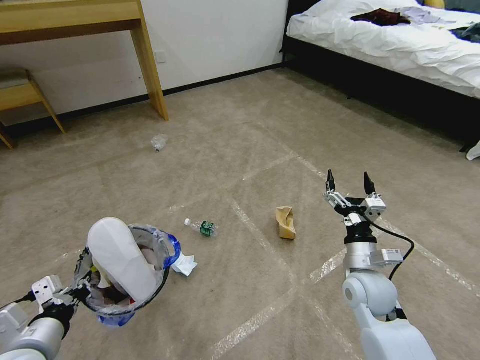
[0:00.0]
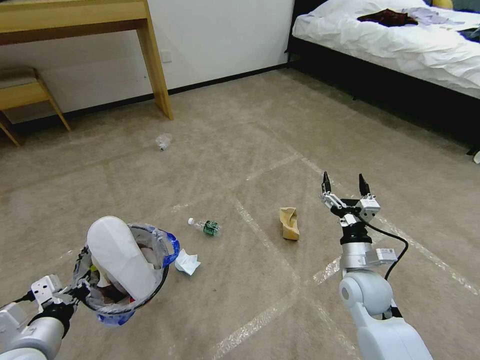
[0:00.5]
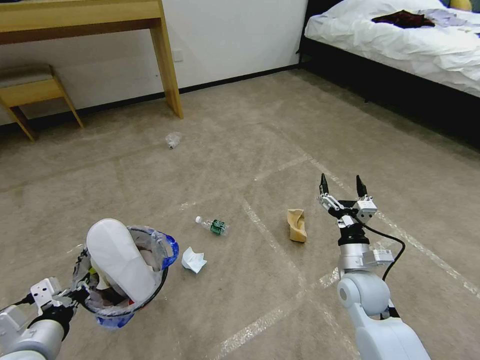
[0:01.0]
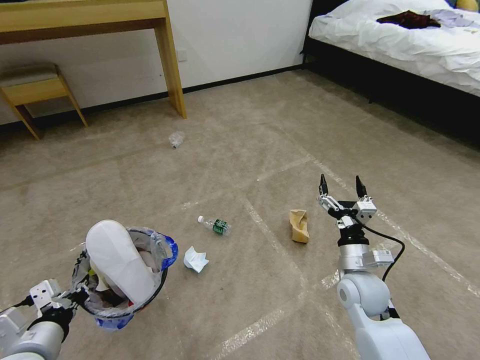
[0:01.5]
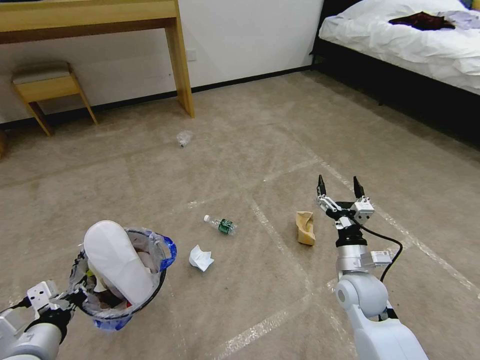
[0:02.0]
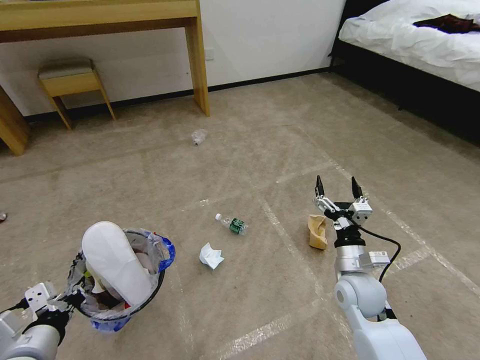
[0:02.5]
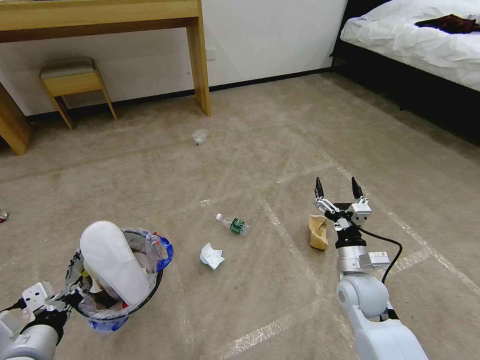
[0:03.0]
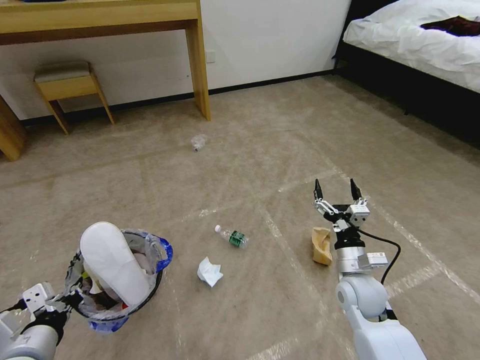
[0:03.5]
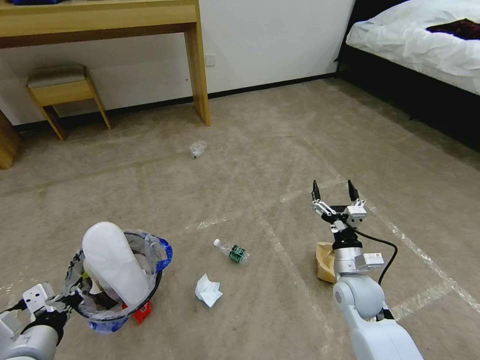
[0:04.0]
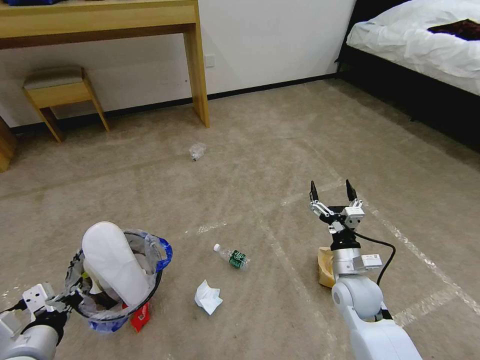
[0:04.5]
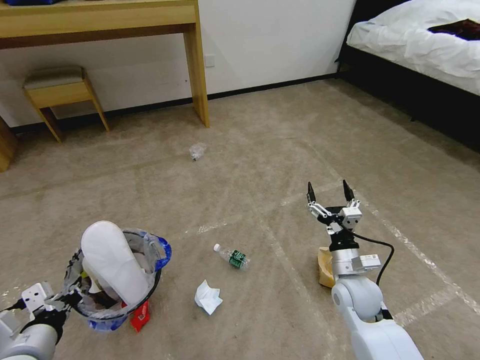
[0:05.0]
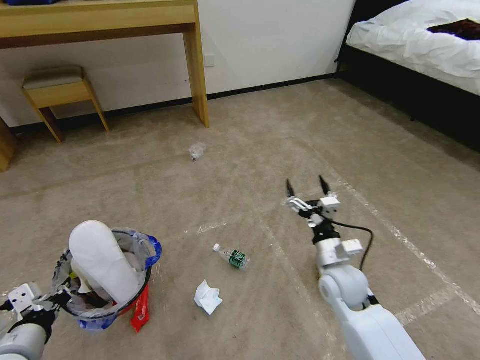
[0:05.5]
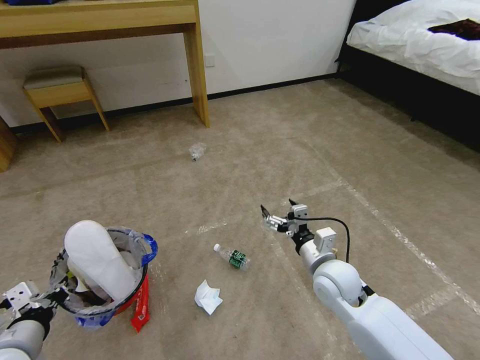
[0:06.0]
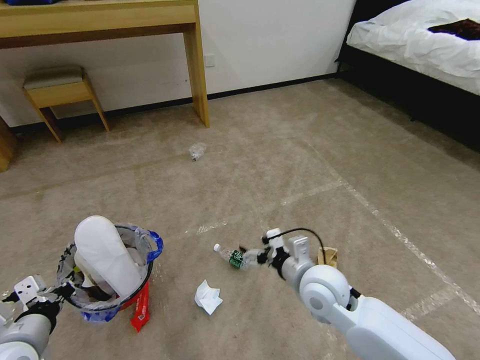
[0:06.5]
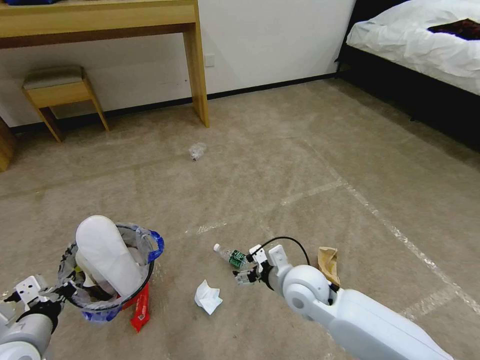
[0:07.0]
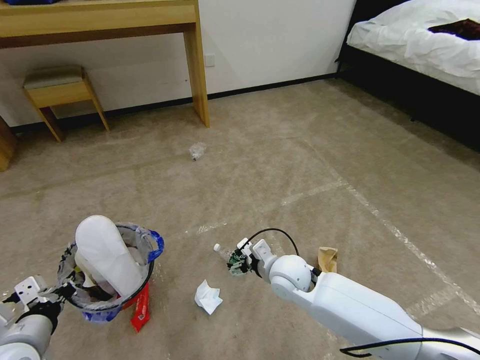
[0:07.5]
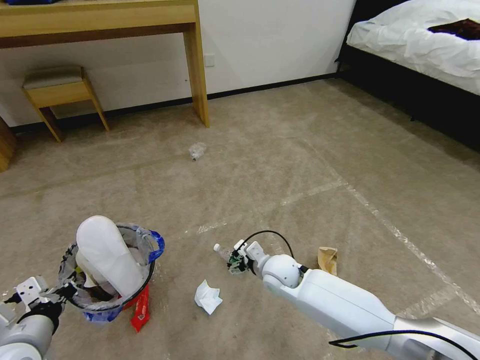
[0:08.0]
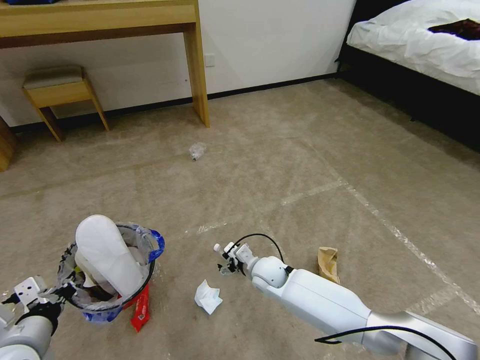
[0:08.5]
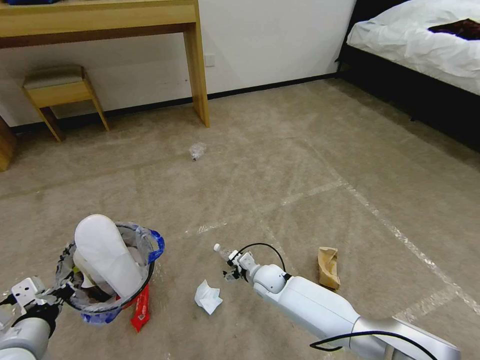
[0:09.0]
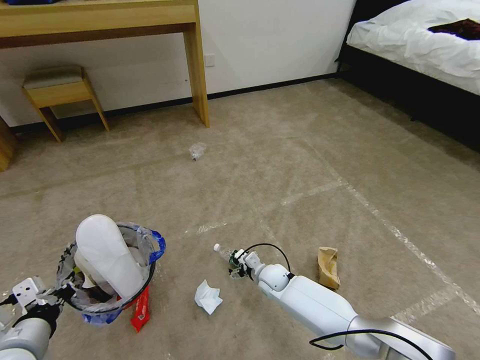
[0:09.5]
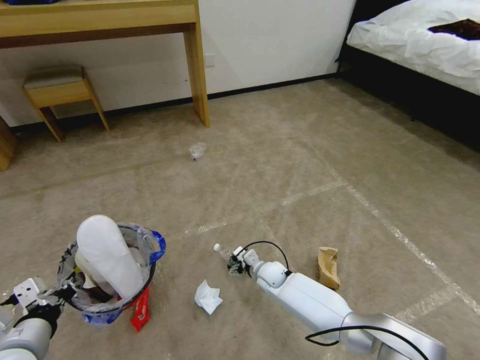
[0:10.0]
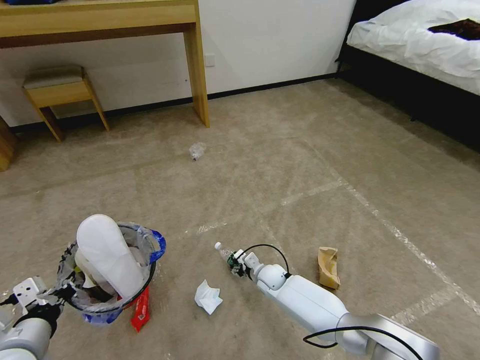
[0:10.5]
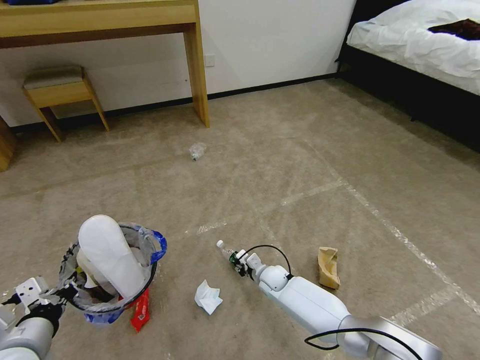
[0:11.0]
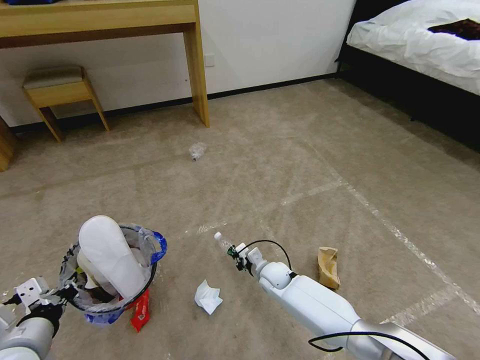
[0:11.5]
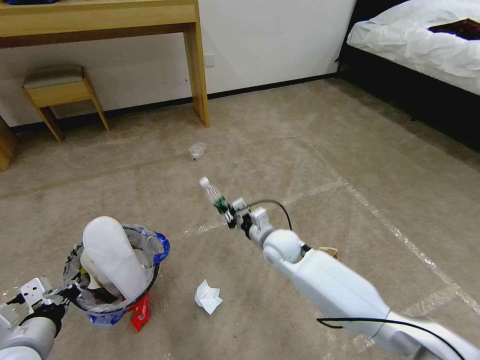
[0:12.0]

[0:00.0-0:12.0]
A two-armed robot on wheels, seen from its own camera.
Task of the whole recording: Pick up the trash bin and place the garbage on the floor into it.
0:04.0 to 0:06.0: The right gripper heads to the left, covering approximately 5 cm.
0:06.0 to 0:08.0: The right gripper travels to the left and downward by some 10 cm.
0:08.0 to 0:10.0: The right gripper is displaced downward by about 10 cm.
0:10.0 to 0:12.0: The right gripper travels upward by some 15 cm, and closes.

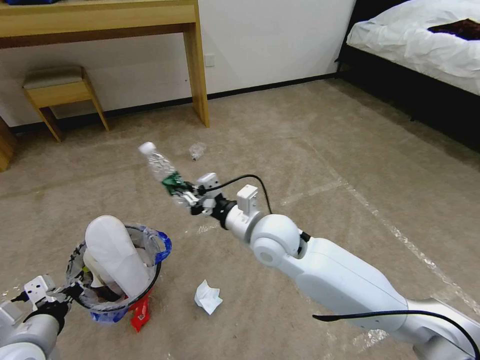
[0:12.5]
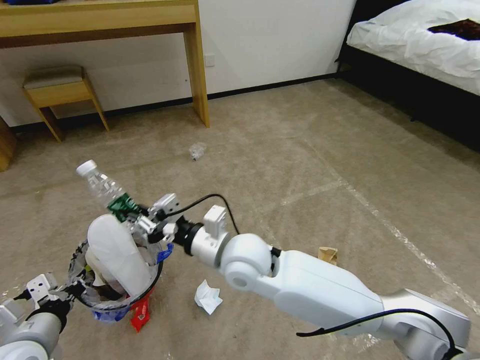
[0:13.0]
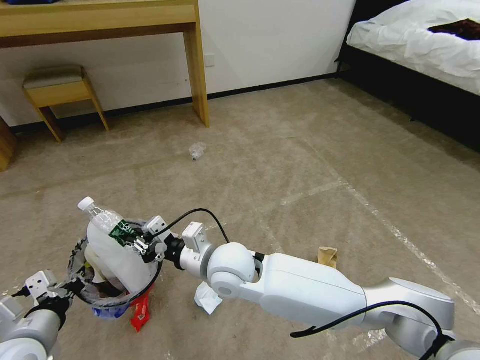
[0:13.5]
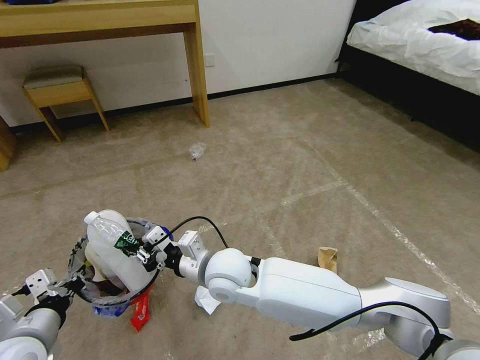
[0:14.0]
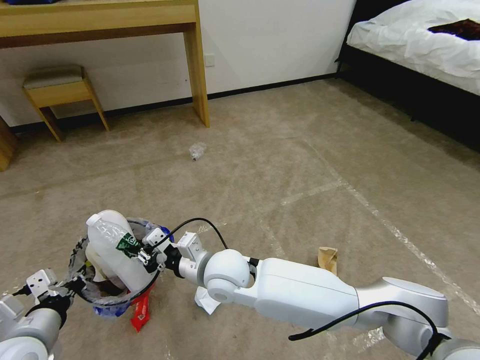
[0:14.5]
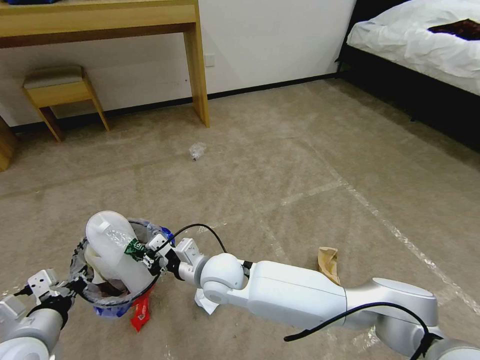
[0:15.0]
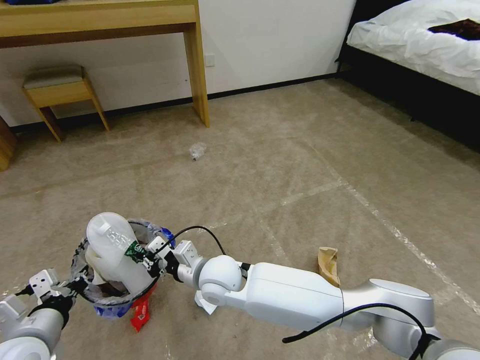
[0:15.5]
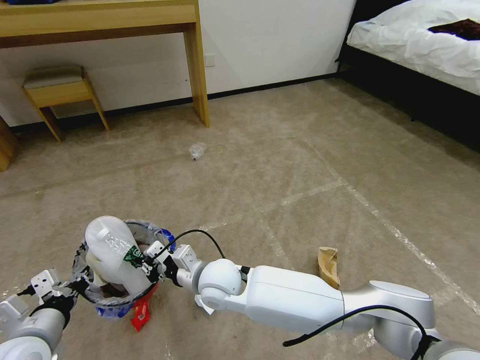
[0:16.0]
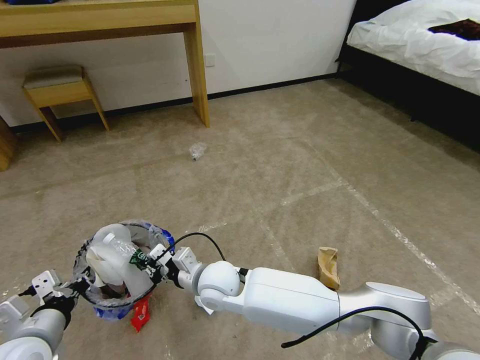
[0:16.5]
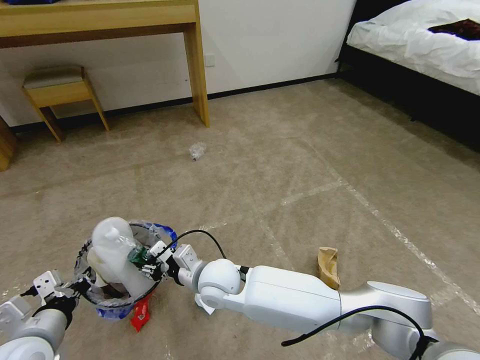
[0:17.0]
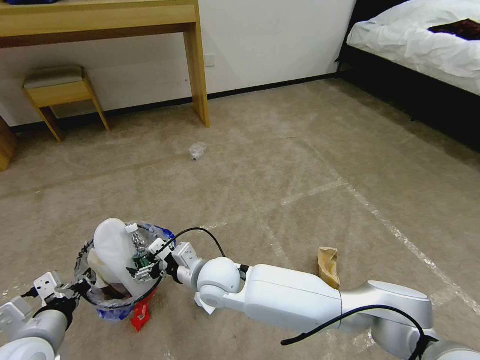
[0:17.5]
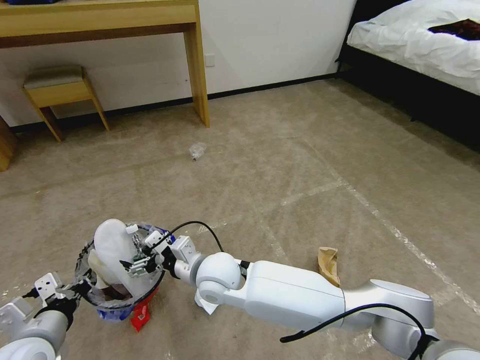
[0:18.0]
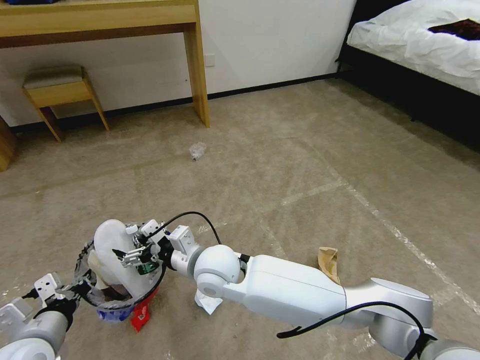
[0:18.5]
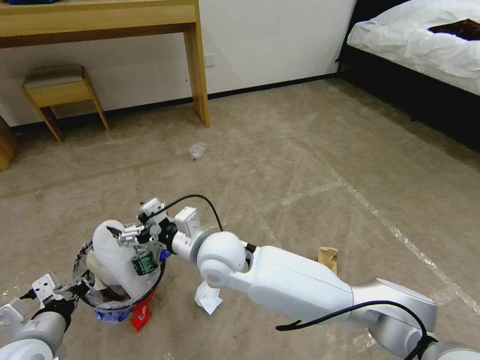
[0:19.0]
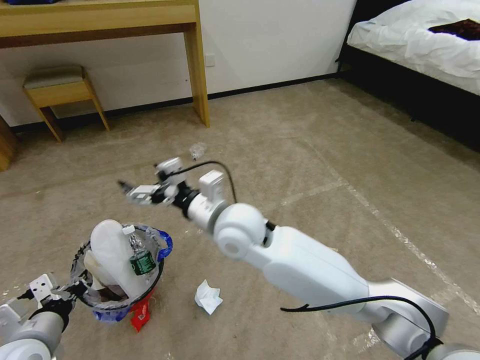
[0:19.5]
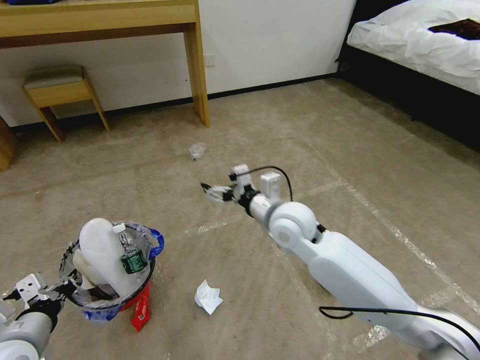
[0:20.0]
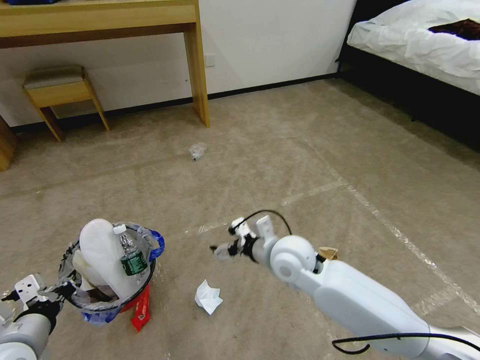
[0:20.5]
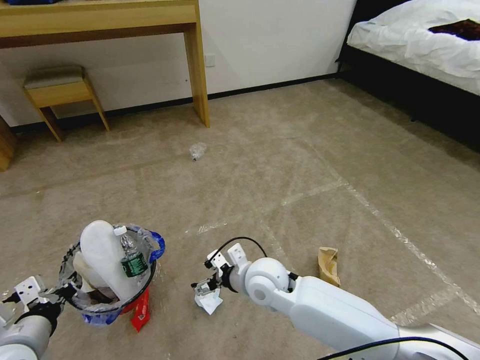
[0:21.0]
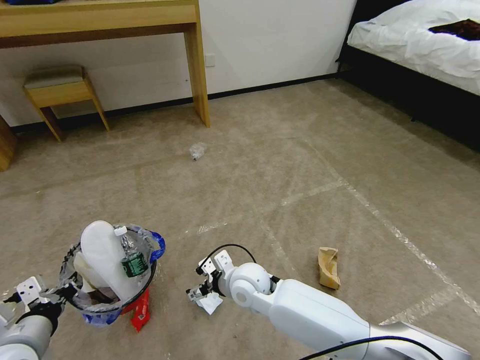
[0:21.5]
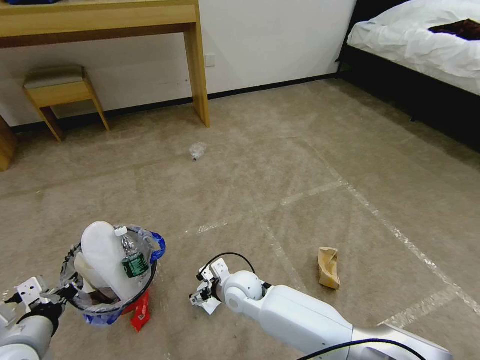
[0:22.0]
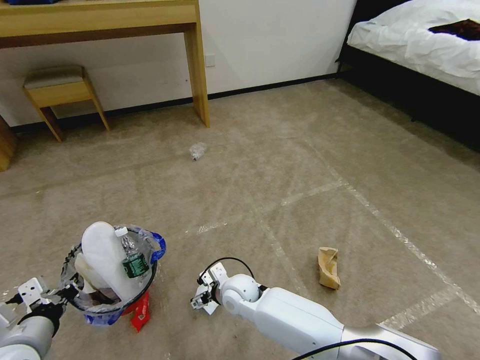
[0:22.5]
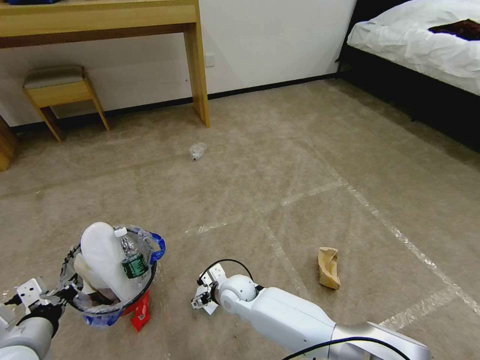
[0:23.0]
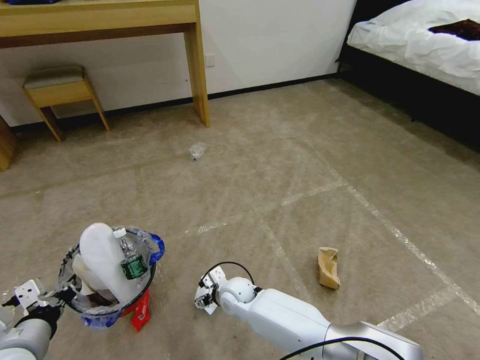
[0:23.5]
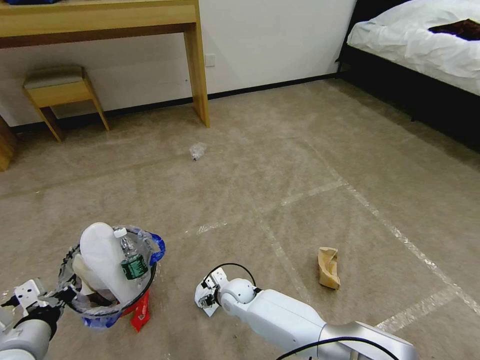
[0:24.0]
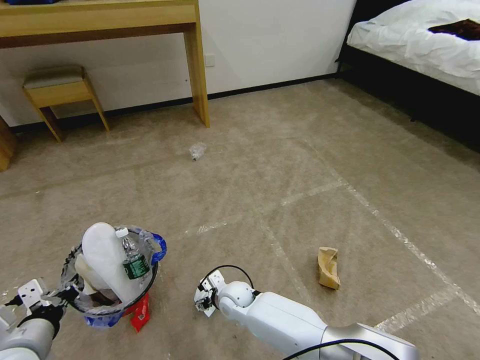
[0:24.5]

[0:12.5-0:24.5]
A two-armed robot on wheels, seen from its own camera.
Task of the whole recording: Pick up the trash bin and place the garbage on the floor into it.
0:12.5 to 0:14.5: The right gripper moves to the left and downward, roughly 10 cm.
0:14.5 to 0:16.5: The right gripper is displaced downward by approximately 5 cm.
0:16.5 to 0:18.5: The right gripper moves upward, approximately 5 cm, and opens its fingers.
0:18.5 to 0:20.5: The right gripper goes approximately 15 cm to the right.
0:20.5 to 0:22.5: The right gripper shifts approximately 20 cm downward and to the left.
0:22.5 to 0:24.5: The right gripper is displaced downward by about 5 cm.

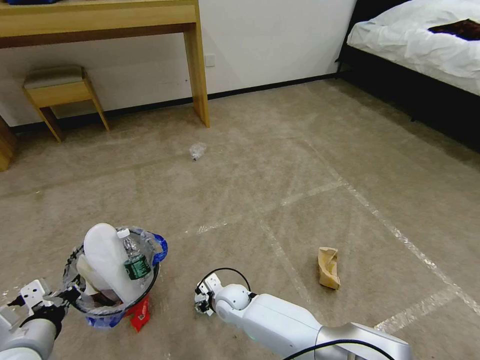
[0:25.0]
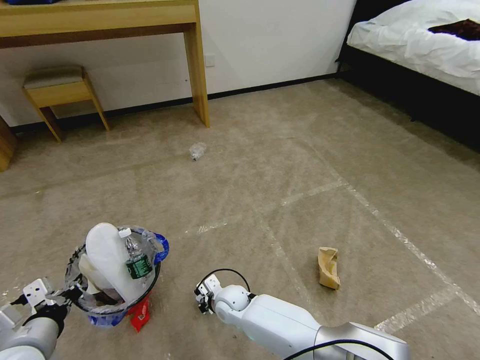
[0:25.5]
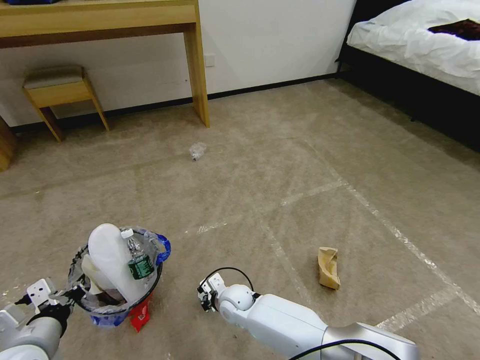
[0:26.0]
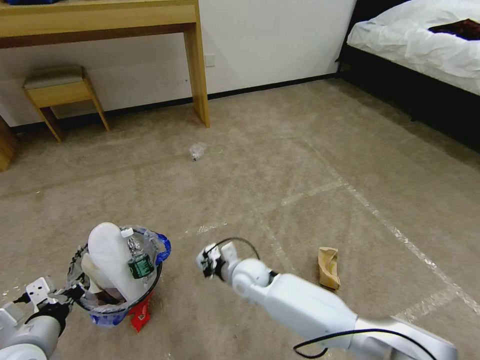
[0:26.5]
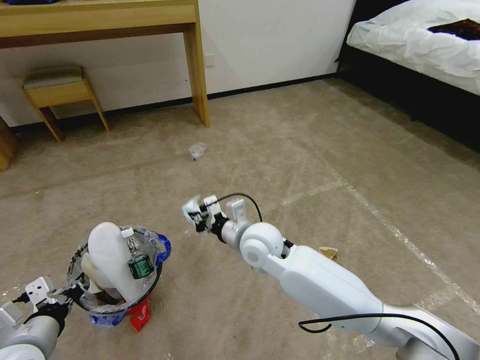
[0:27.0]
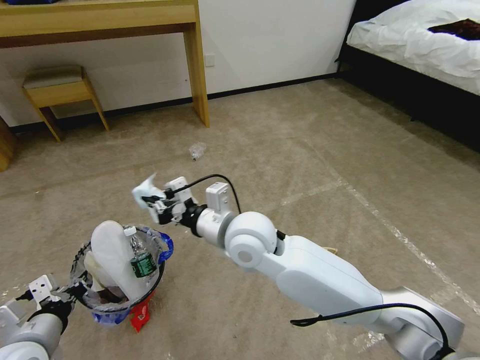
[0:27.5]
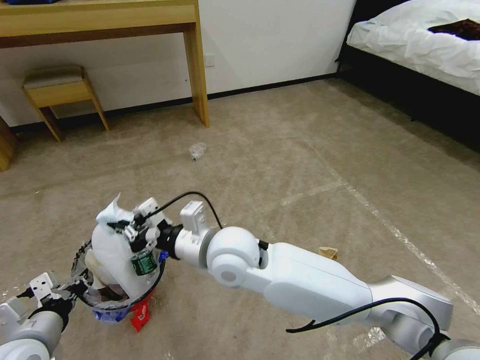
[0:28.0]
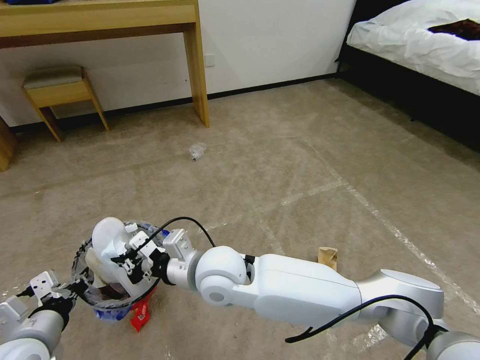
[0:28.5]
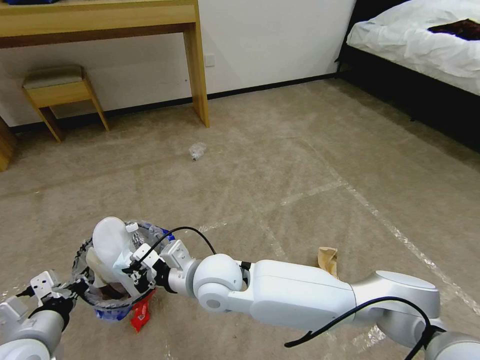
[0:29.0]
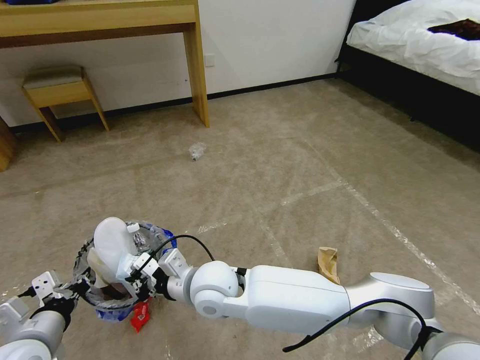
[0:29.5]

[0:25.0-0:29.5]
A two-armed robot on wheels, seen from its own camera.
Task of the whole recording: Pick up the trash bin and place the garbage on the floor into it.
0:25.0 to 0:27.0: The right gripper is displaced upward by roughly 25 cm, and closes its fingers.
0:27.0 to 0:29.5: The right gripper heads to the left and backward, covering some 15 cm.
